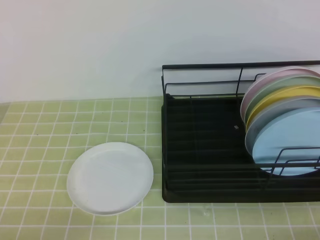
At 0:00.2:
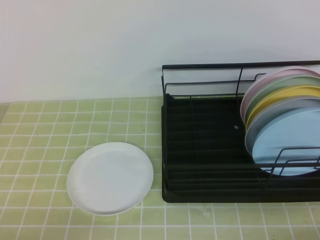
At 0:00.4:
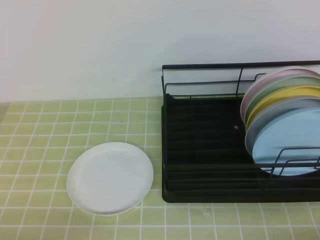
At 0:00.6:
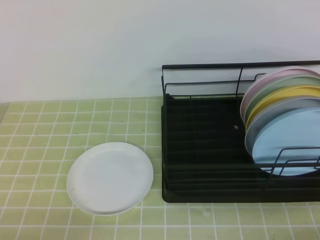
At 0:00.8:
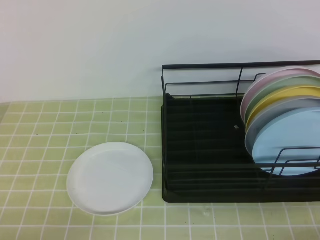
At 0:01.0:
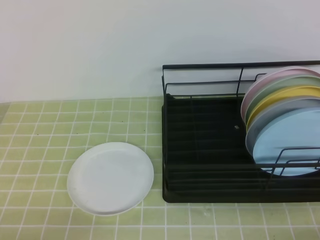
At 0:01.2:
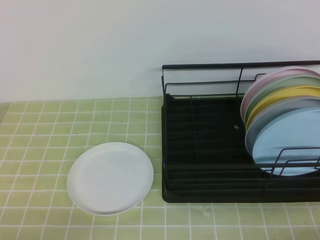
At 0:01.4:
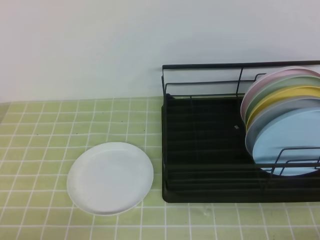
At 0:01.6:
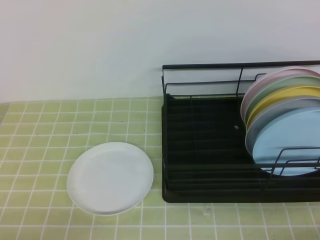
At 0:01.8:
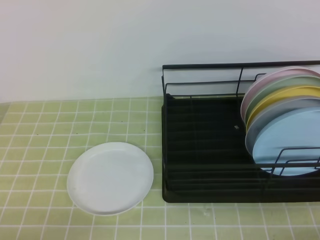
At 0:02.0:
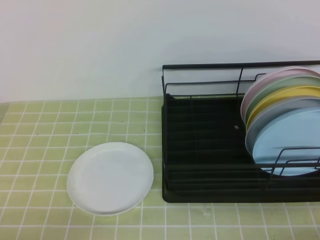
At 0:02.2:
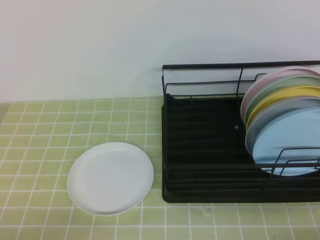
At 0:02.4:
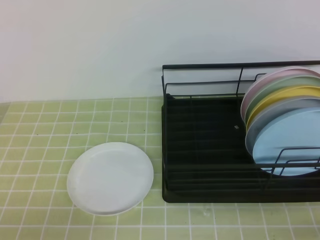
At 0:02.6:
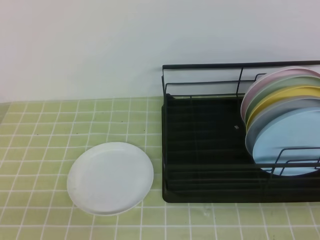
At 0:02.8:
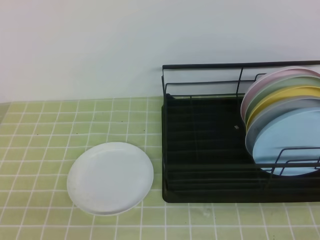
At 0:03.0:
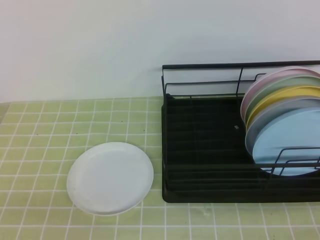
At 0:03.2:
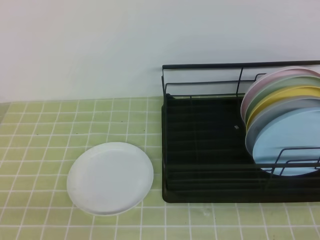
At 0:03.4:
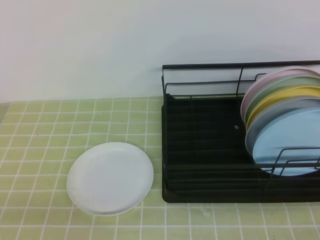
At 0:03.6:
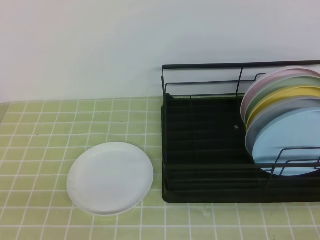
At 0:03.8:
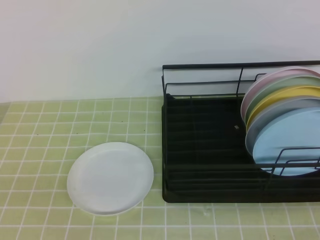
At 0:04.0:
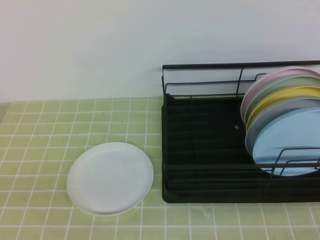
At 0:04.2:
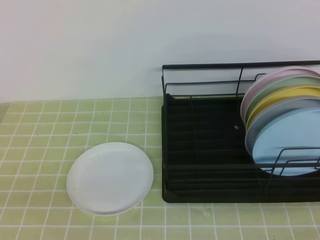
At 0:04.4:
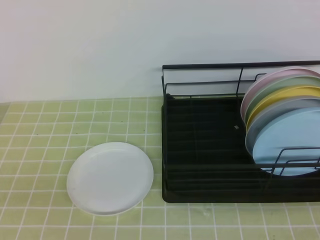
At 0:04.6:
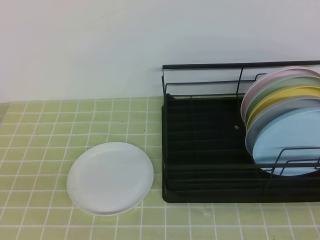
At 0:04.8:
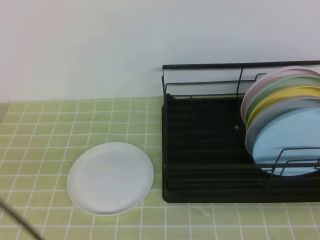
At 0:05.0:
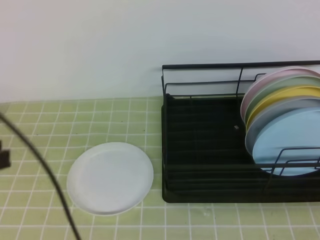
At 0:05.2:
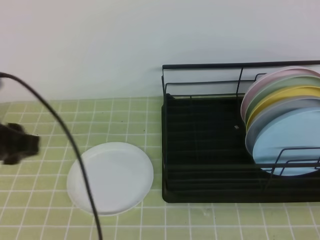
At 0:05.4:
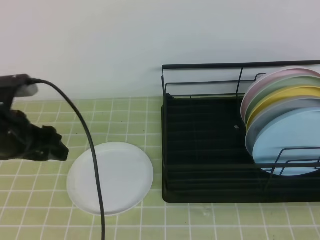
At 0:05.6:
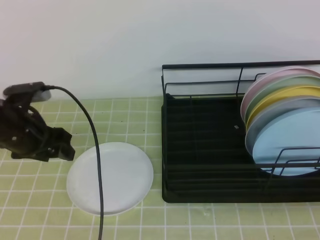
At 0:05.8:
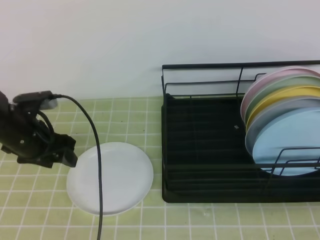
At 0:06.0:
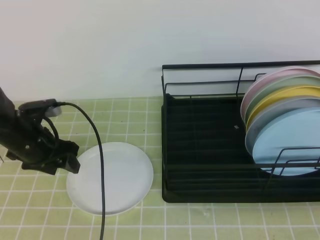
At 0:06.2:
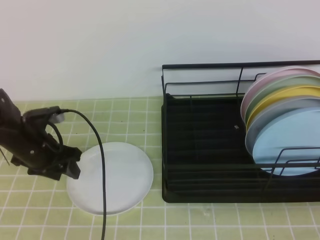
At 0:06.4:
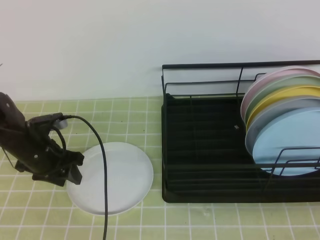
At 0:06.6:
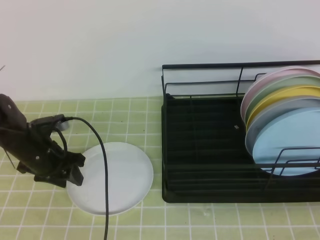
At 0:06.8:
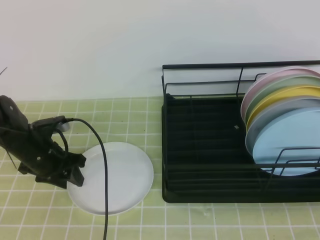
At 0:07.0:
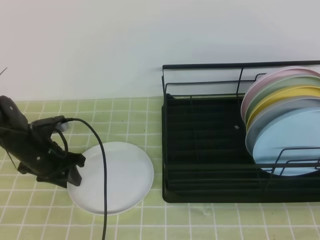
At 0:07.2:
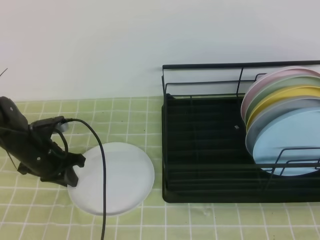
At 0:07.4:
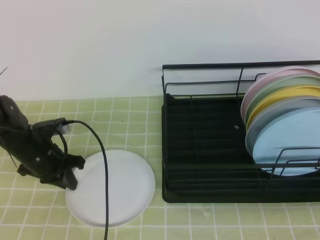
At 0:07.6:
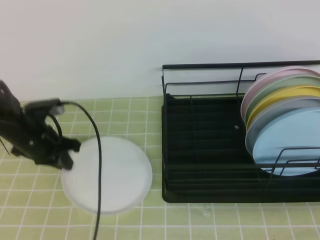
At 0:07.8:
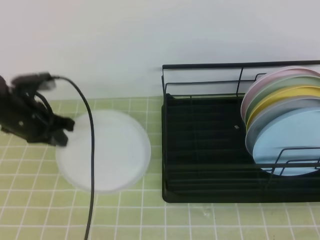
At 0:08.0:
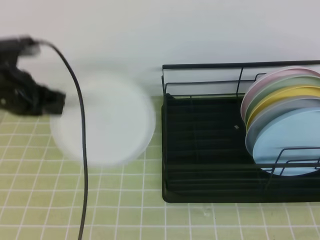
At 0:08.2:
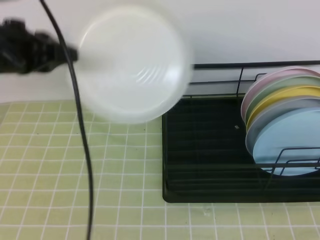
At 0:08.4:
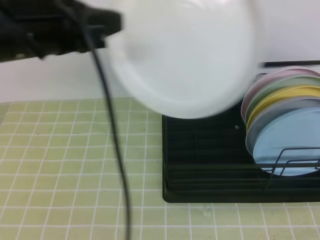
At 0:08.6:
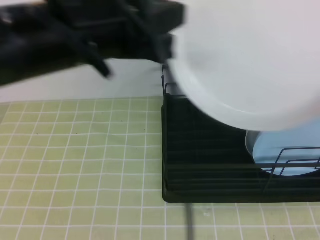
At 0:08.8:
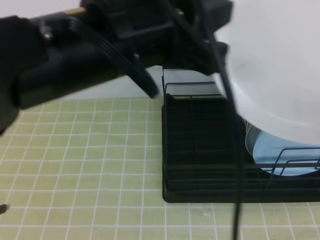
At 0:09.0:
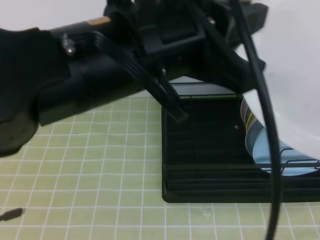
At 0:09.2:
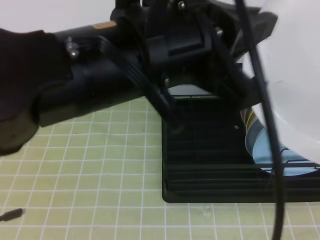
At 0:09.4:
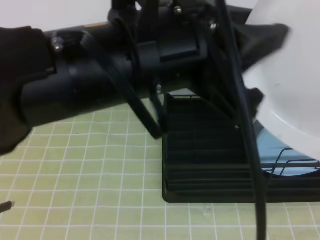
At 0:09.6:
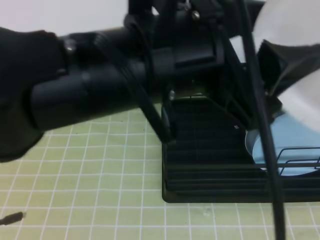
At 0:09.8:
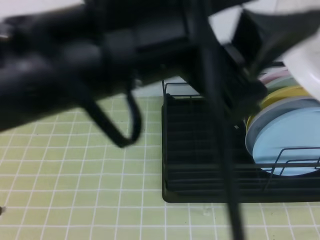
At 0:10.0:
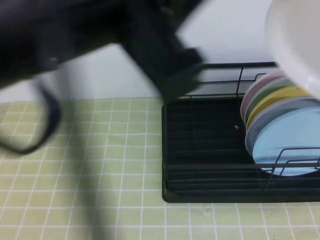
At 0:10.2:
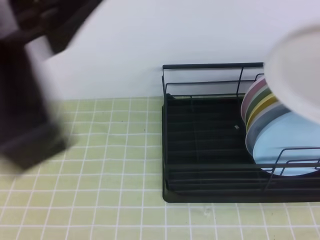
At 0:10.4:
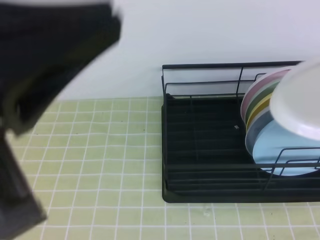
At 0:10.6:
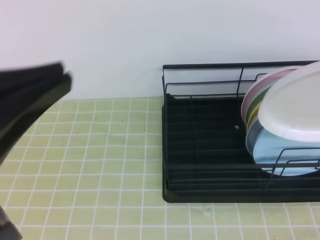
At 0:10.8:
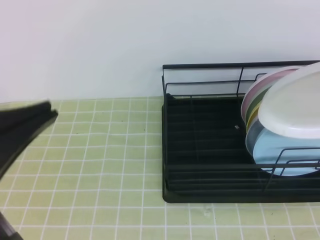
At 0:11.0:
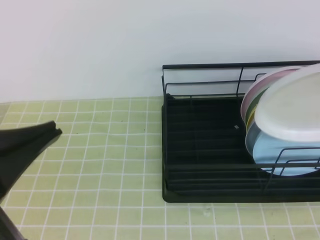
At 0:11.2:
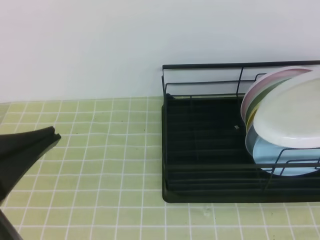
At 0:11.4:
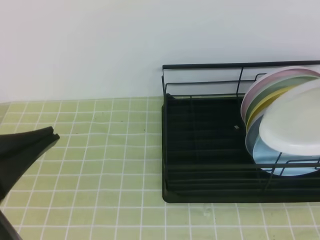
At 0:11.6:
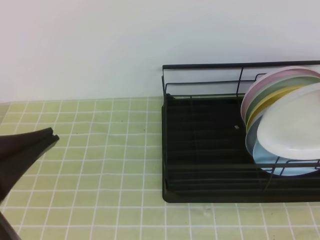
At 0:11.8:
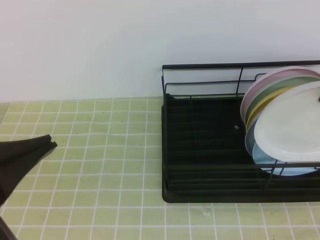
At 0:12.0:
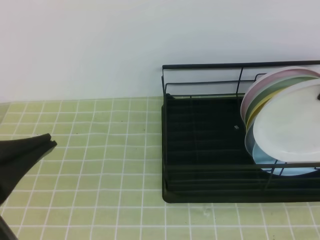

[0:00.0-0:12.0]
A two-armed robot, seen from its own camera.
Step, 0:00.0 to 0:06.0: Left grab the white plate.
Step, 0:07.8 to 0:11.4: Right place it at the front of the shelf.
0:00.0 to 0:01.6: The two grippers keep their place.
0:04.4 to 0:06.0: The left gripper goes some 30 cm forward, and opens up.
0:06.0 to 0:07.6: The left gripper closes up.
0:07.6 to 0:09.0: The right gripper shifts roughly 15 cm upward, and opens. The left gripper shifts roughly 35 cm upward, to the right and backward.
0:09.0 to 0:10.4: The left gripper goes about 15 cm to the left and backward, and opens, then closes once more. Meanwhile the right gripper travels forward and upward by about 15 cm, and closes.
0:10.4 to 0:12.0: The left gripper shifts some 10 cm downward, while the right gripper goes about 15 cm forward and downward.

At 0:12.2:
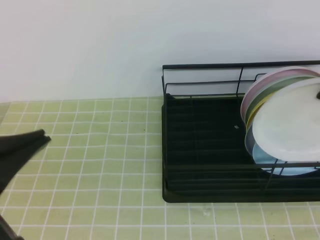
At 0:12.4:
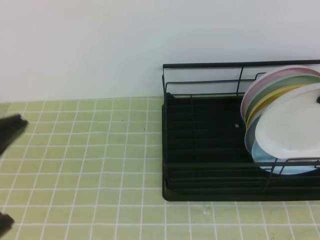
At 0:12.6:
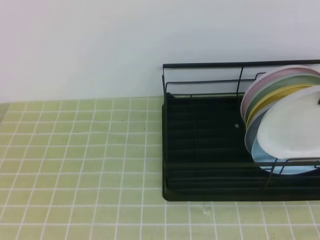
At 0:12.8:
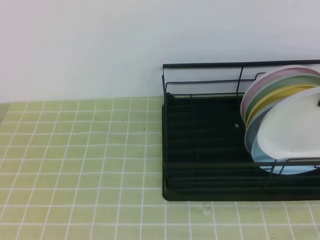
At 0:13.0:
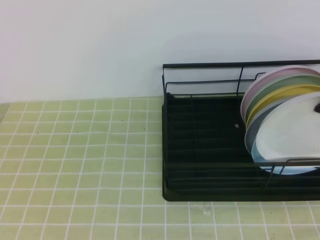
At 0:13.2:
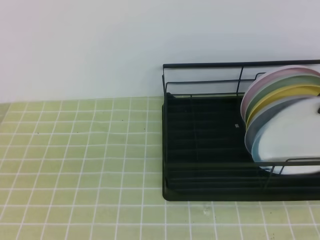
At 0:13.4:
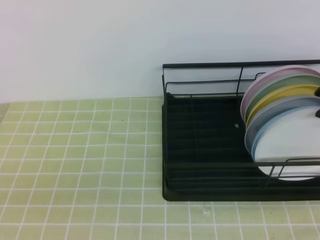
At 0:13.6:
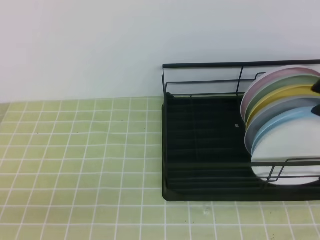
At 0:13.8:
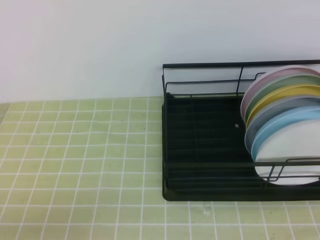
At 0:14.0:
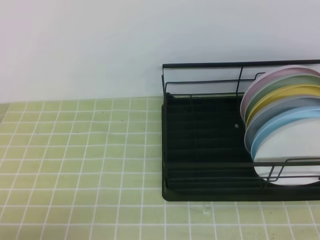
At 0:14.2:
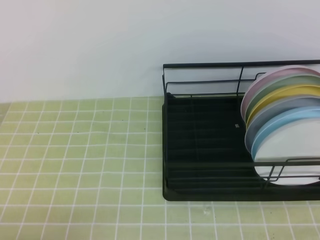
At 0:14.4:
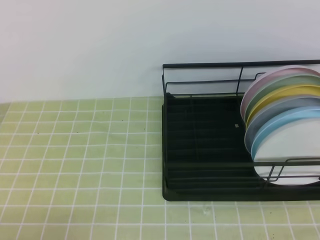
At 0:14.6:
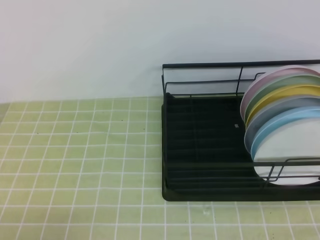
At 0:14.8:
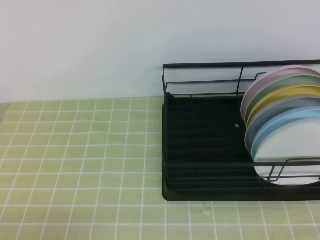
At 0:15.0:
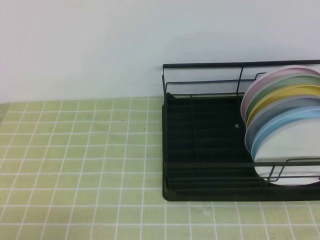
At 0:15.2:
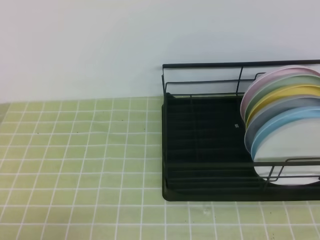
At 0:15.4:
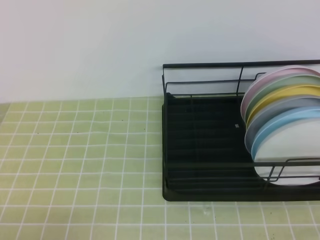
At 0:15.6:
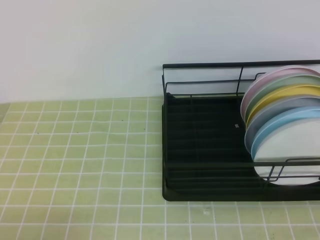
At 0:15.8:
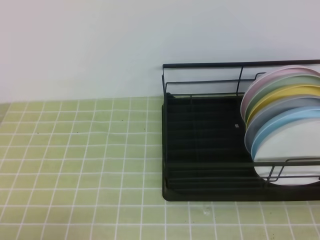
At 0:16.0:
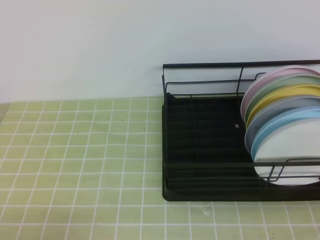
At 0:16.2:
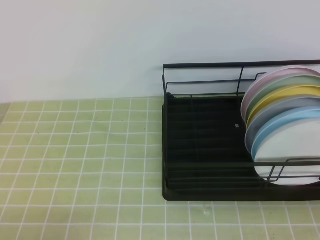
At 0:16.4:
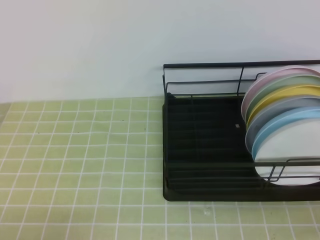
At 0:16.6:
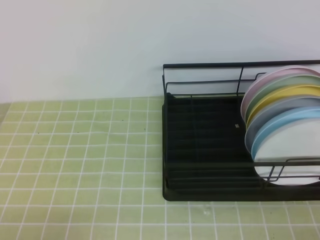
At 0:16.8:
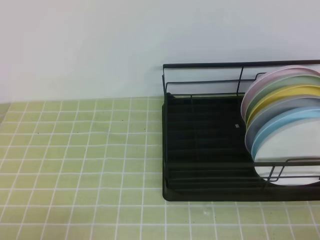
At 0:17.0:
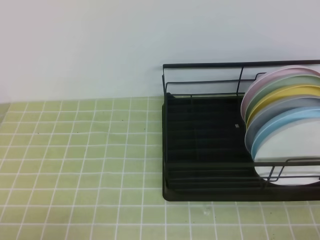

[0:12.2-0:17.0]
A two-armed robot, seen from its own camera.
0:12.2 to 0:13.8: The left gripper is displaced downward and to the left by roughly 15 cm; the right gripper opens up.
0:13.8 to 0:15.4: The right gripper travels backward by approximately 20 cm, and closes.
